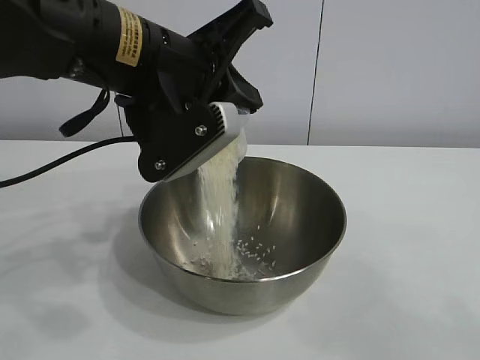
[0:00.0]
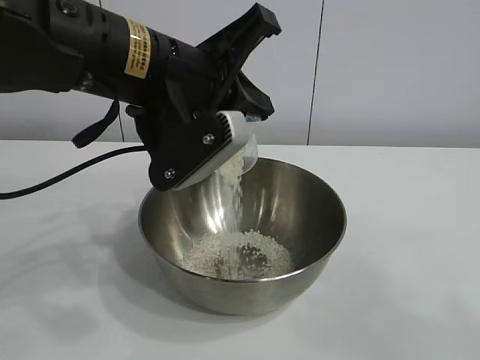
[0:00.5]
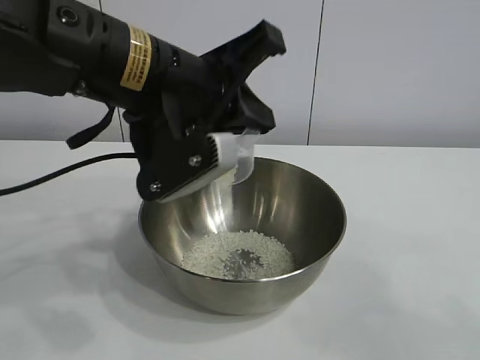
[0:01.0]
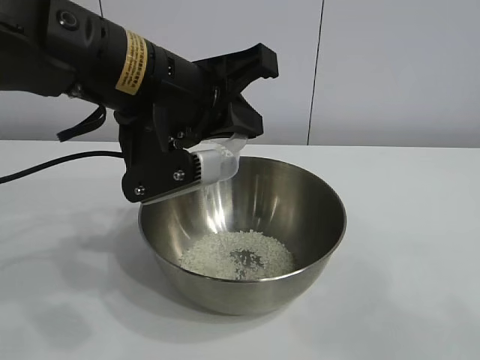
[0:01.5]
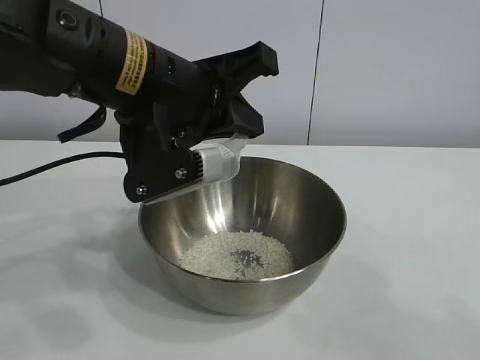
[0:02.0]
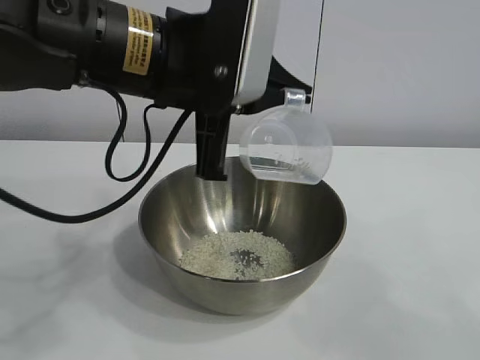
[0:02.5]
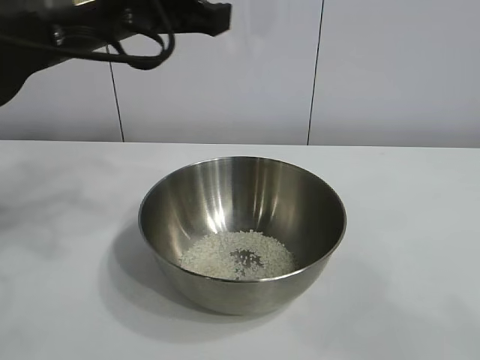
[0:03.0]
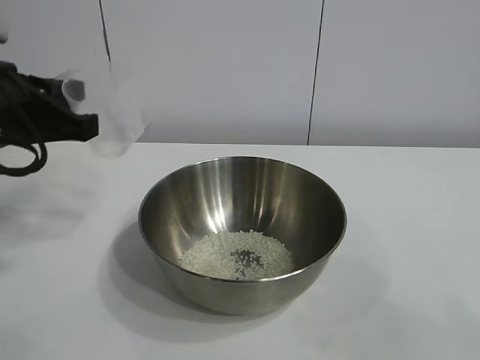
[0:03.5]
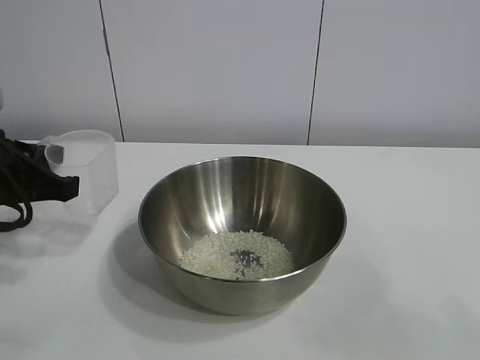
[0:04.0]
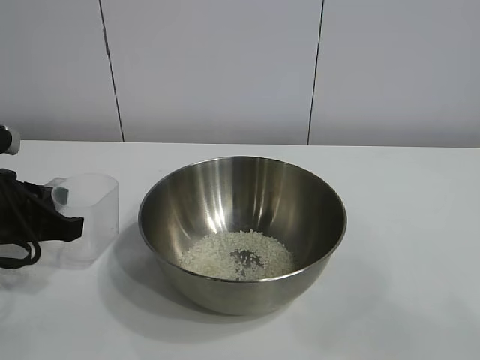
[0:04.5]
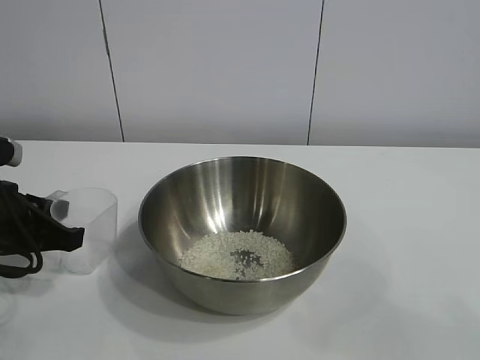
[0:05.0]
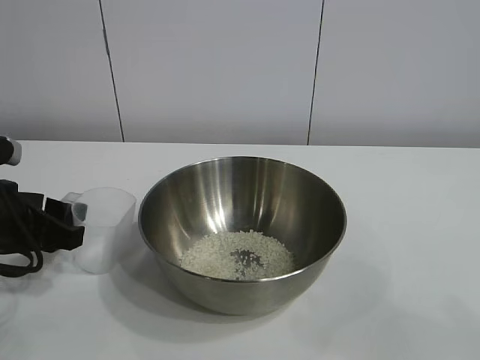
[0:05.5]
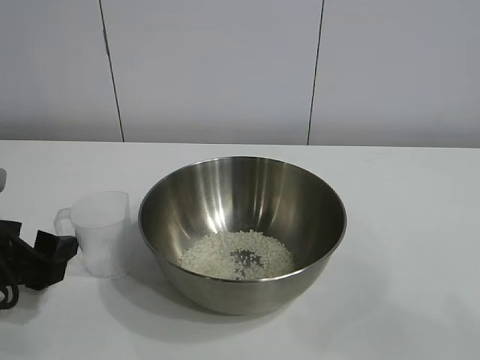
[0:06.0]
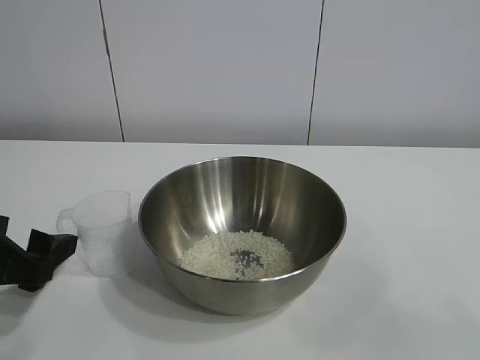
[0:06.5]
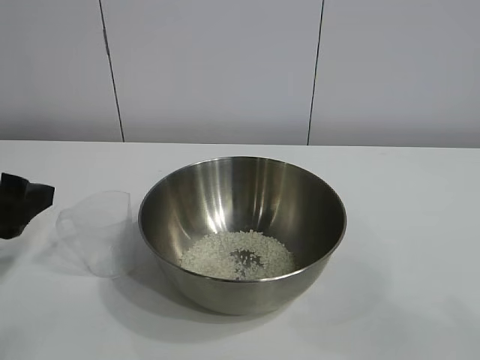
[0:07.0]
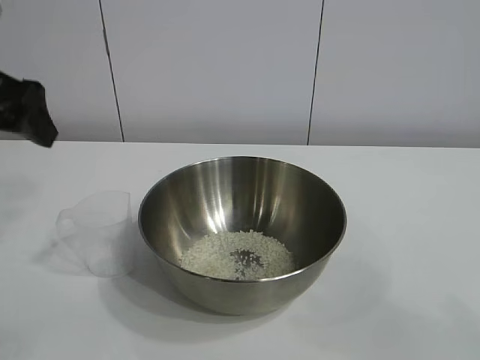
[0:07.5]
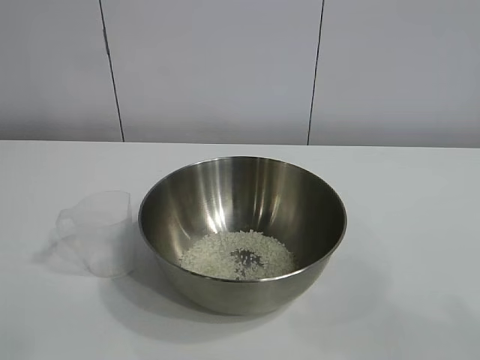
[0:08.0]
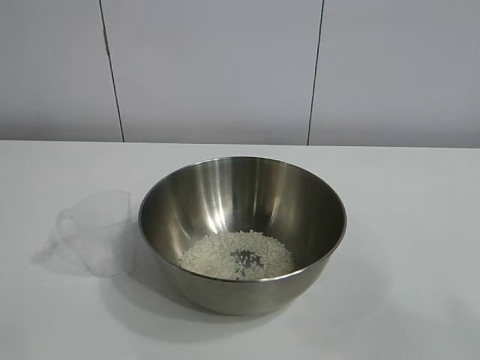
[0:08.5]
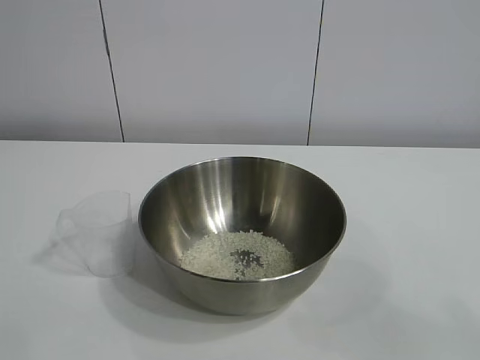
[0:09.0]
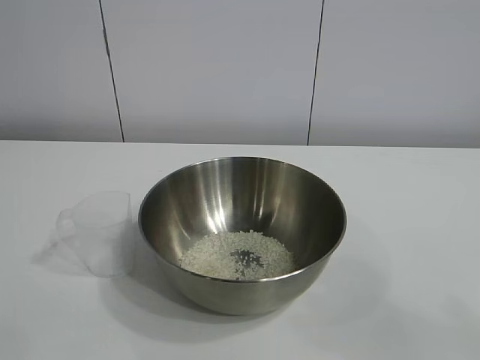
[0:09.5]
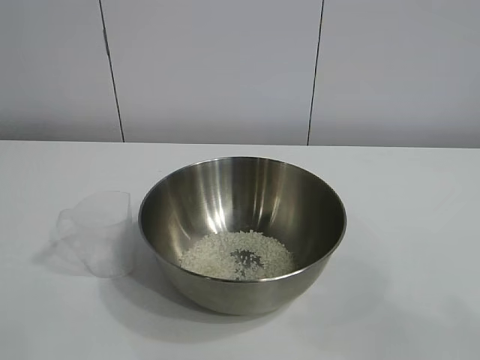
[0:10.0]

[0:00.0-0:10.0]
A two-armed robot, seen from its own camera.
Task of the whole recording: the right gripper grasp the rice container and place it in the center of the table, the left gripper grasp the rice scoop and pour the rice into the rice container.
Step, 0.0 to 2.0 s: Pour the rice from the cup into the bowl with the left gripper.
Step, 2.5 to 5.5 s: Place the cup on the table with the left gripper.

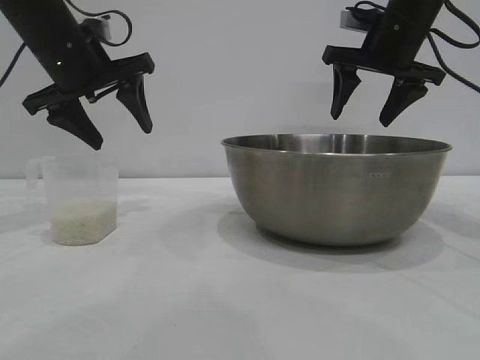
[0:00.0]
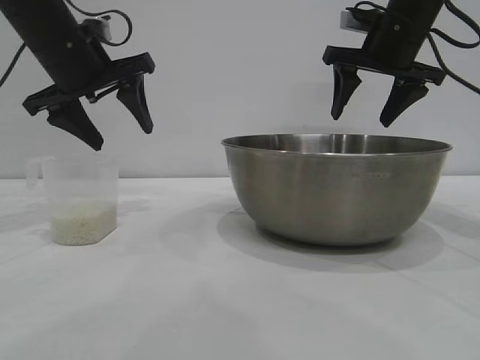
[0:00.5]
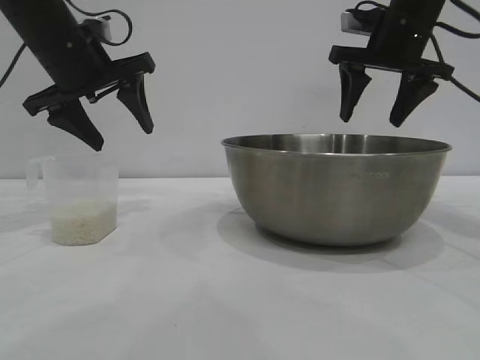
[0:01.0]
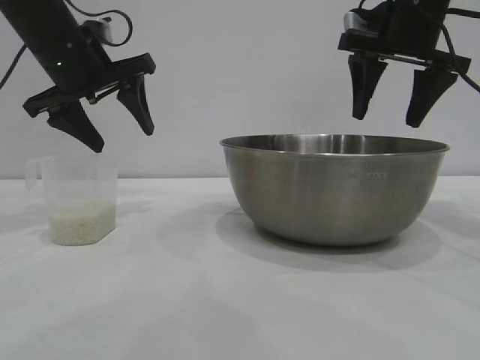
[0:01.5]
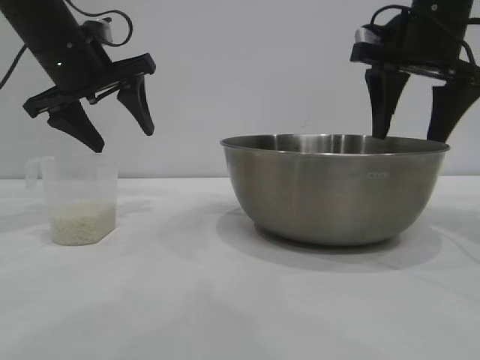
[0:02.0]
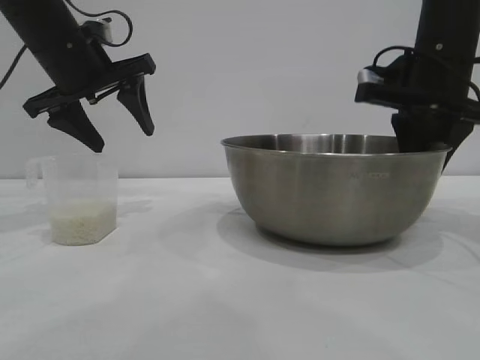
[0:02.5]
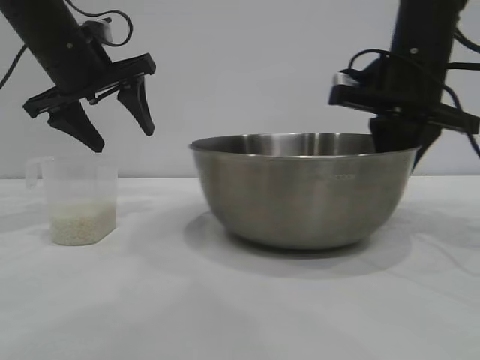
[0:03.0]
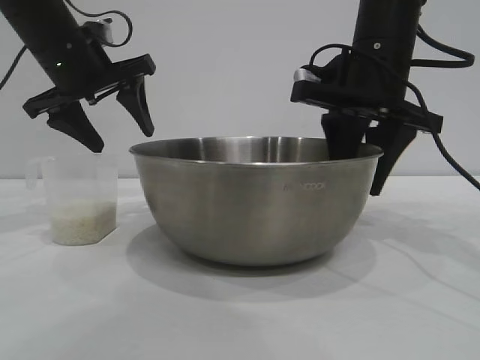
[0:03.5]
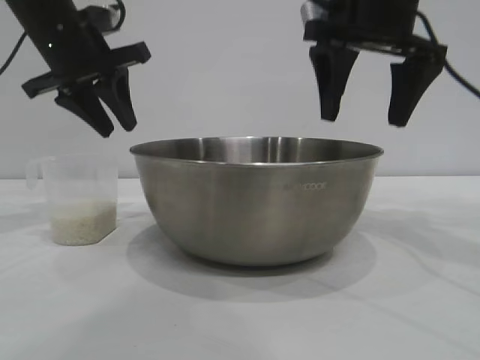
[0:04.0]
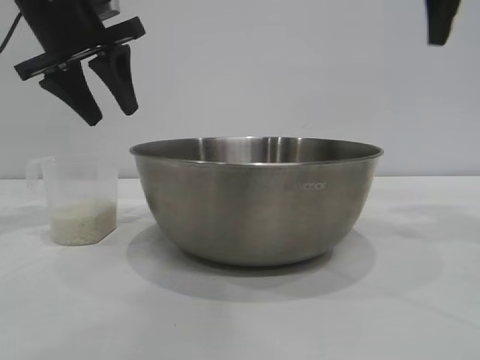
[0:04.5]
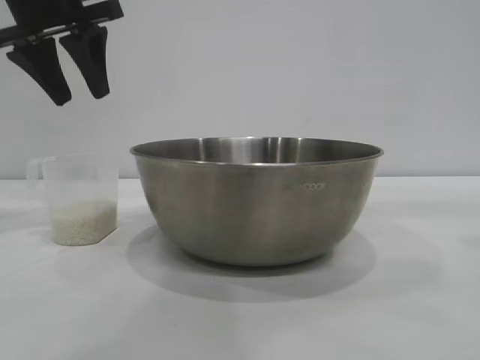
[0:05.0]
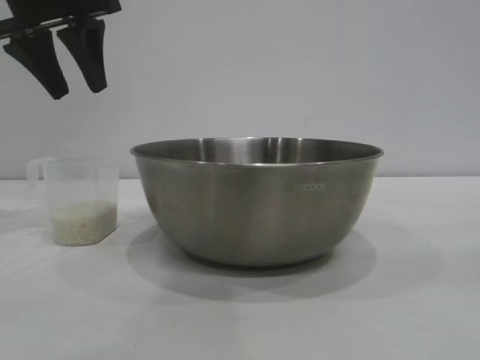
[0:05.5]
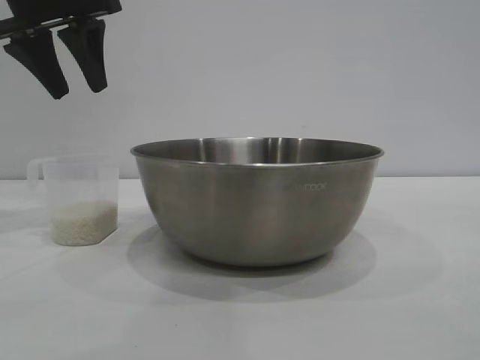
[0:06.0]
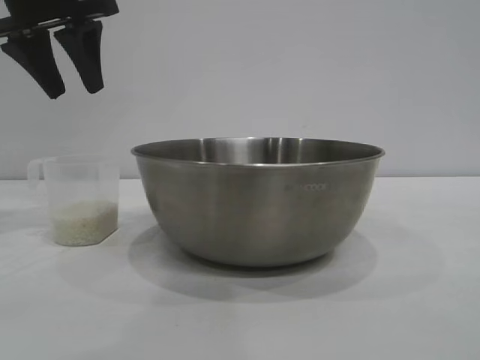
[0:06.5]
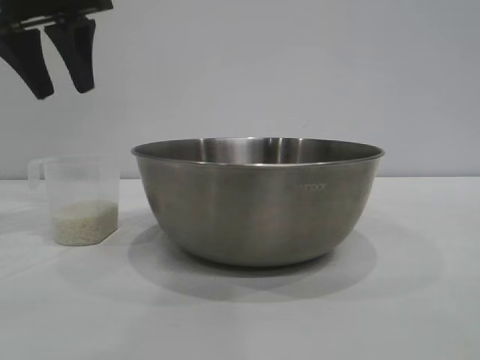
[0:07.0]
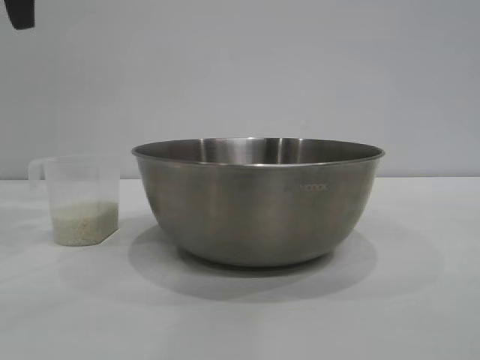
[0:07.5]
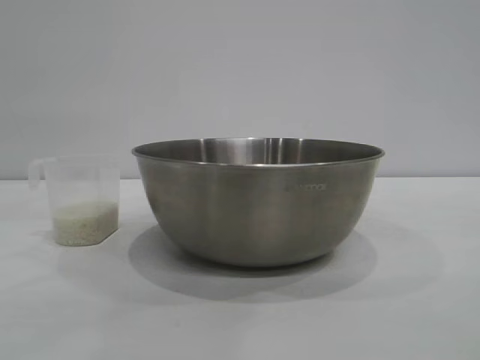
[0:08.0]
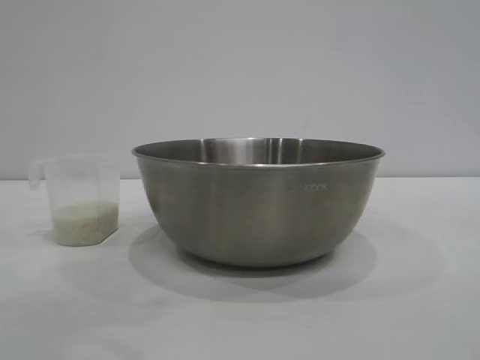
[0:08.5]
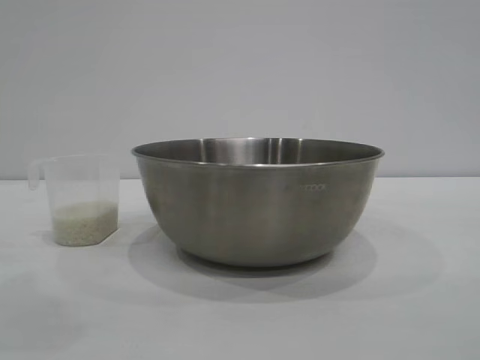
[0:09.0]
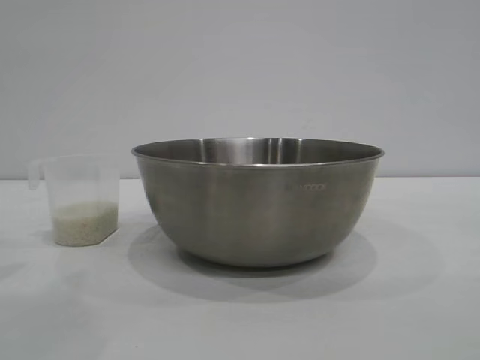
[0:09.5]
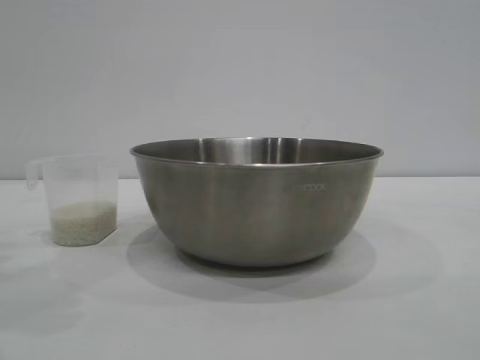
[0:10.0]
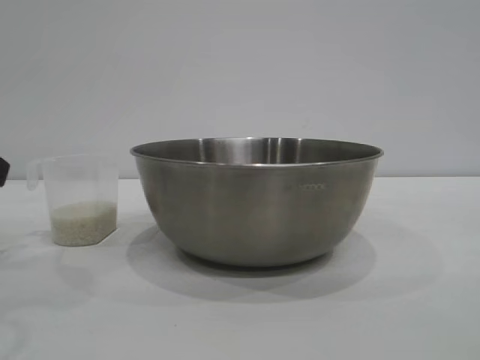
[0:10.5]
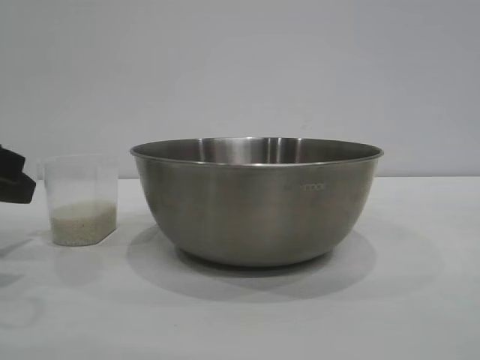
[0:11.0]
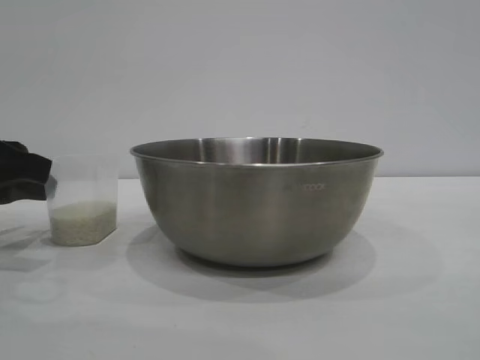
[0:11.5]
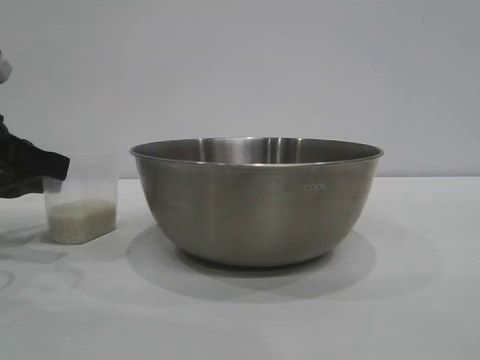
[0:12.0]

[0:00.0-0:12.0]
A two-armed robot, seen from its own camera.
Task of the whole recording: the right gripper grasp the rice container and place it in the center of the table, the left gripper grasp the rice scoop and pour the rice into the rice container.
Step, 0.0 to 3.5 s: Move the bowl to the center of view with the right gripper.

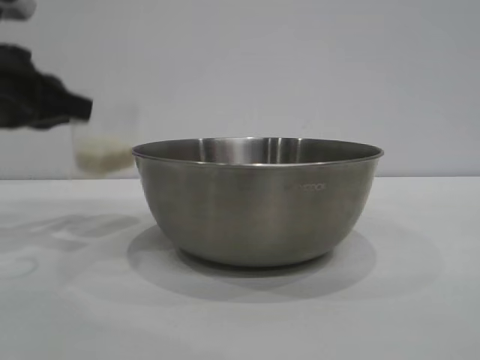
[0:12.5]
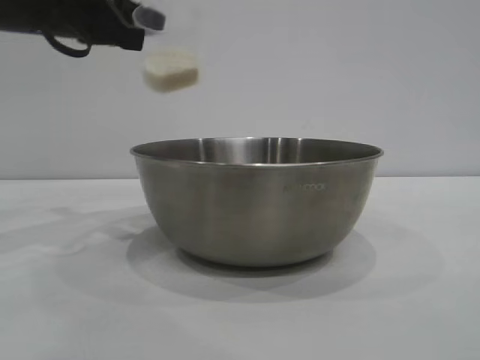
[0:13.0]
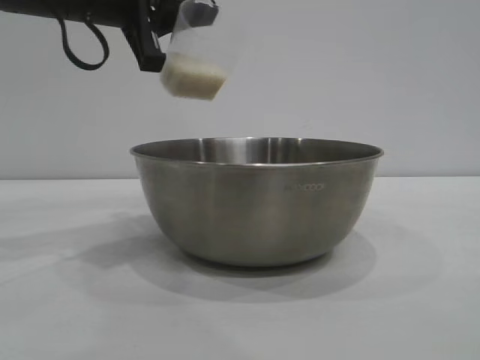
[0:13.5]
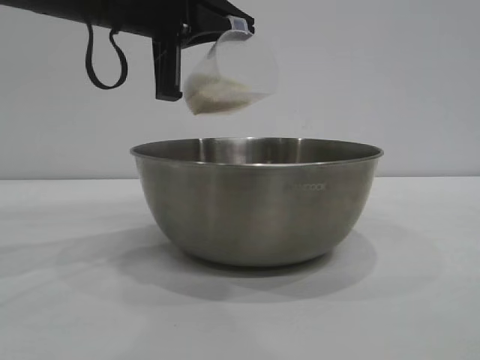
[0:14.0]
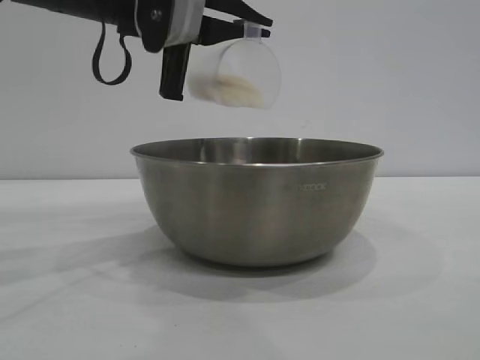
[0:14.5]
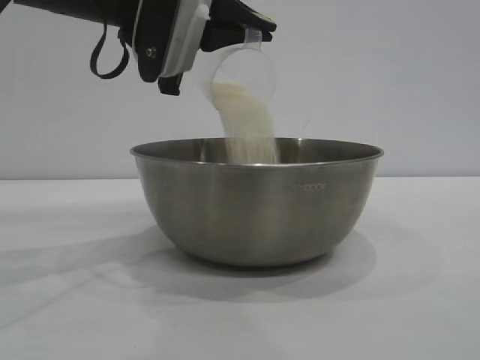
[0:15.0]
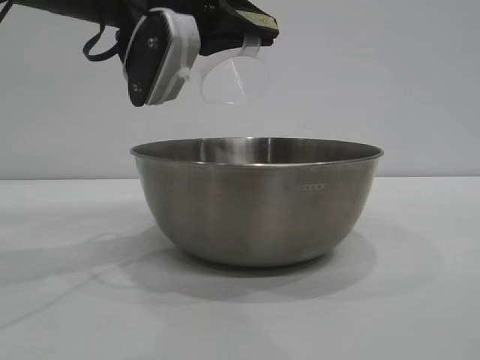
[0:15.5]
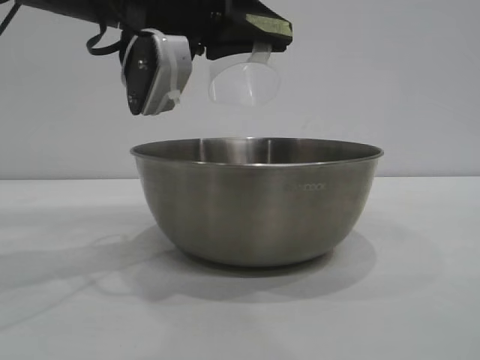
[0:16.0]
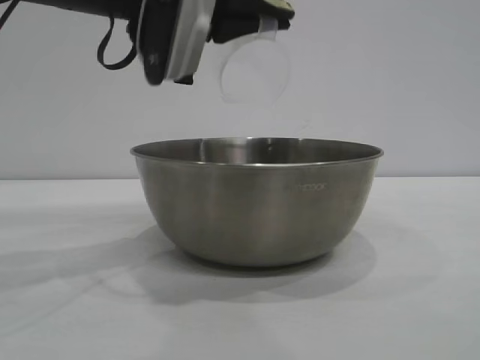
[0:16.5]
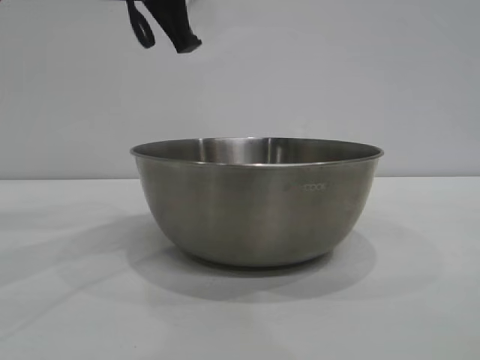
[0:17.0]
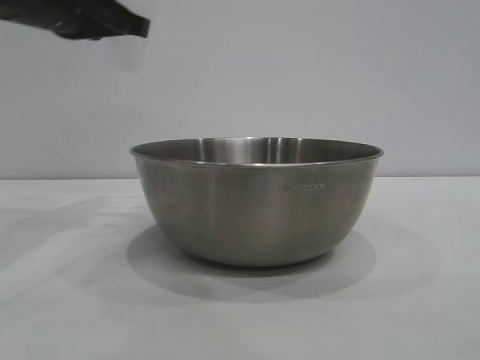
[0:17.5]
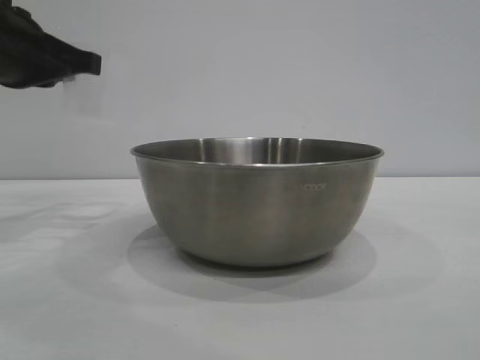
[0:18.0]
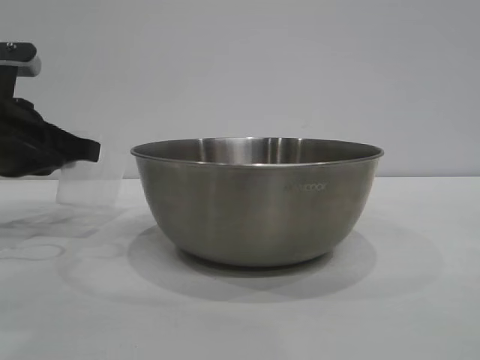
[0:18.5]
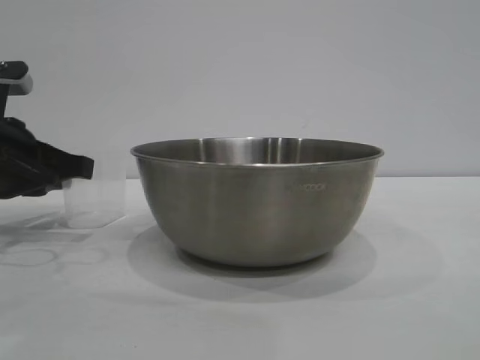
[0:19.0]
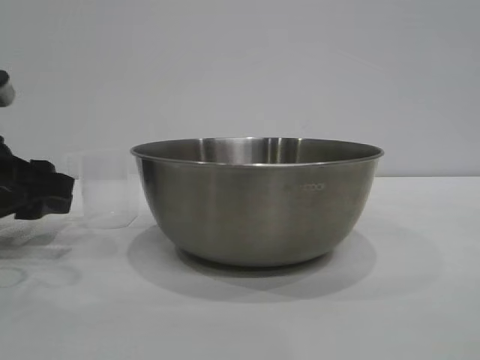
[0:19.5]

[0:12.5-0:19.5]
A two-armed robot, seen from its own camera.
Task of the whole recording: the right gripper grasp the rice container and place it in the center of the table, the left gripper grasp the rice scoop and pour the rice into the rice container.
Step, 12.5 to 15.5 s: Pour the rice from the cup into the bowl with the left gripper.
